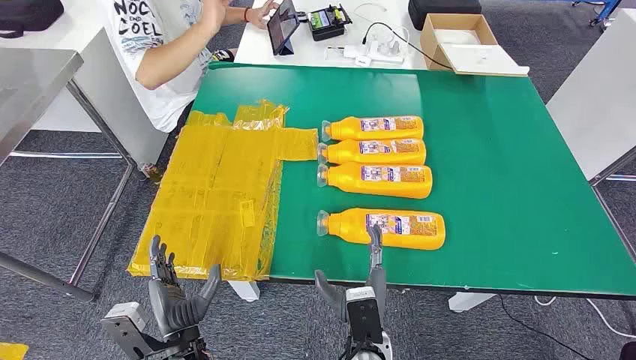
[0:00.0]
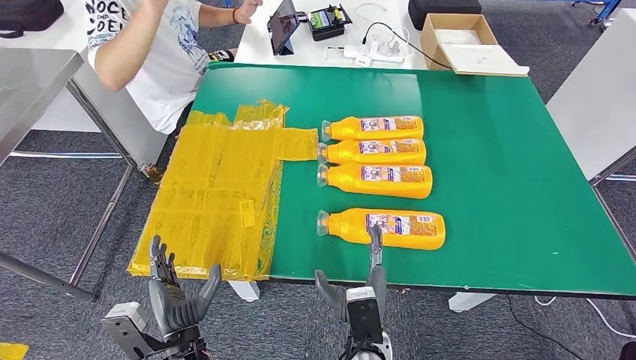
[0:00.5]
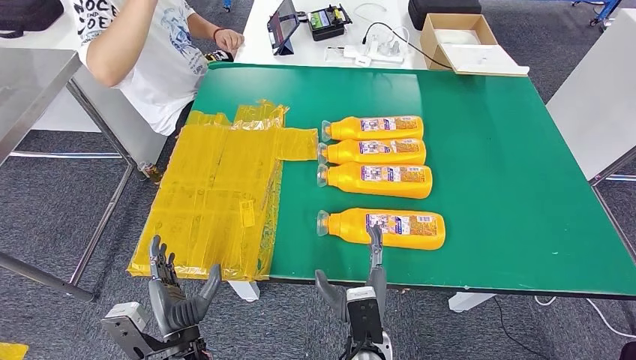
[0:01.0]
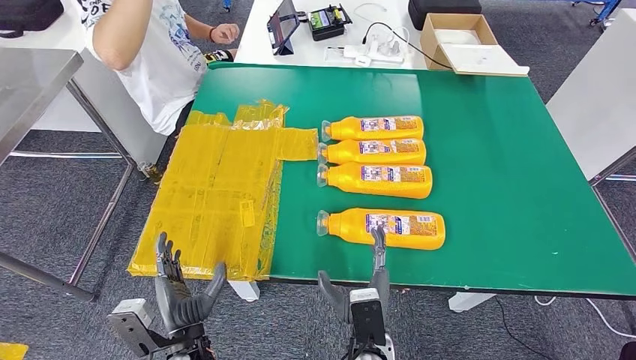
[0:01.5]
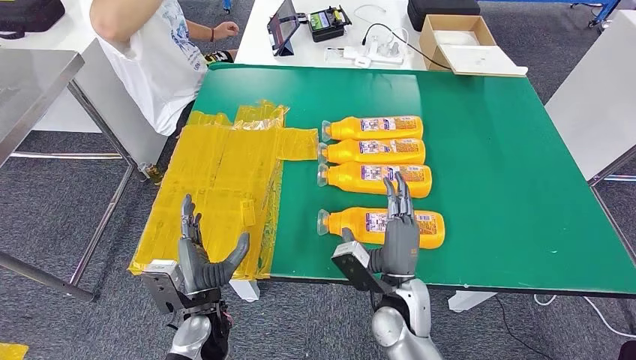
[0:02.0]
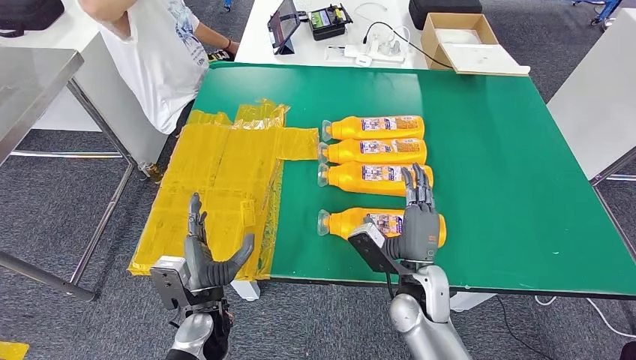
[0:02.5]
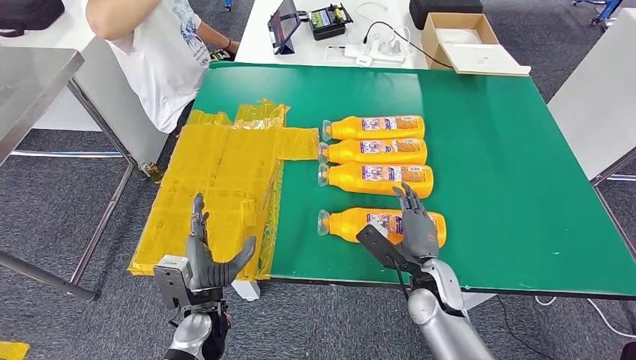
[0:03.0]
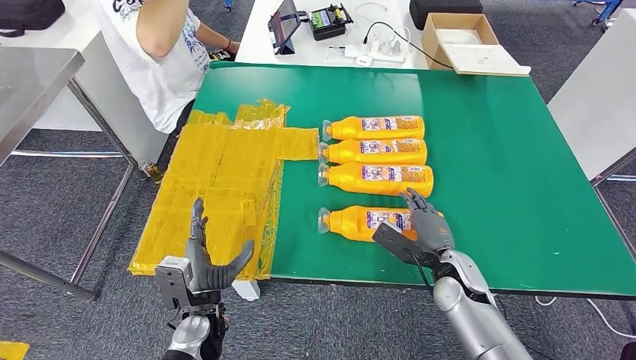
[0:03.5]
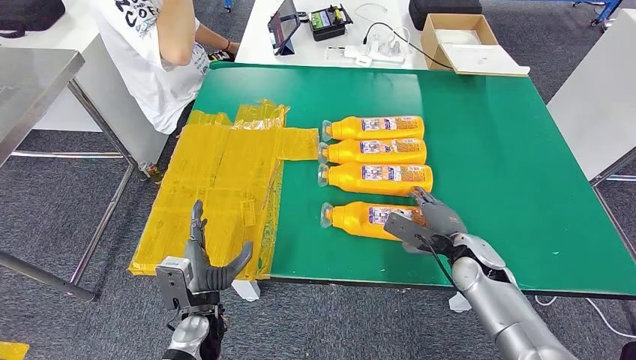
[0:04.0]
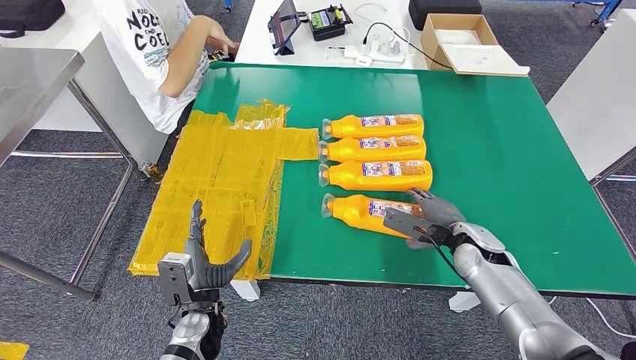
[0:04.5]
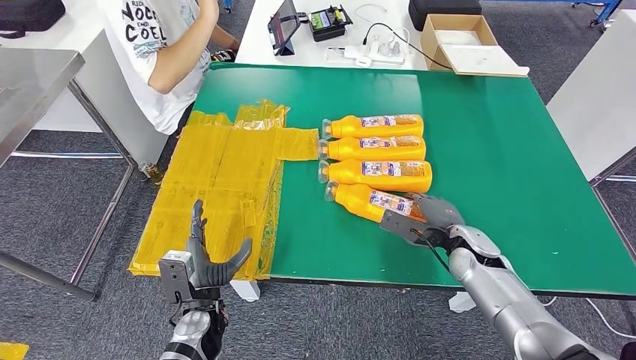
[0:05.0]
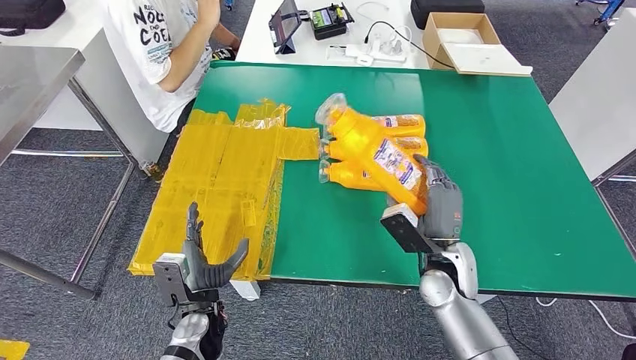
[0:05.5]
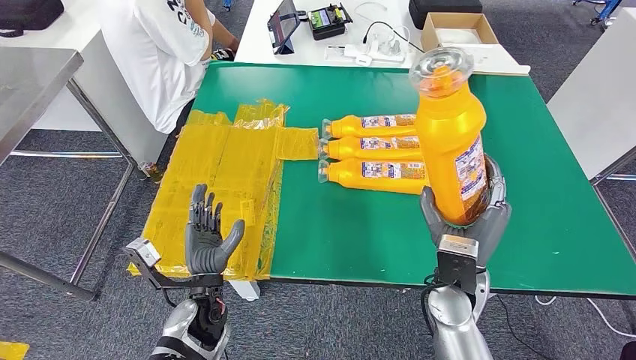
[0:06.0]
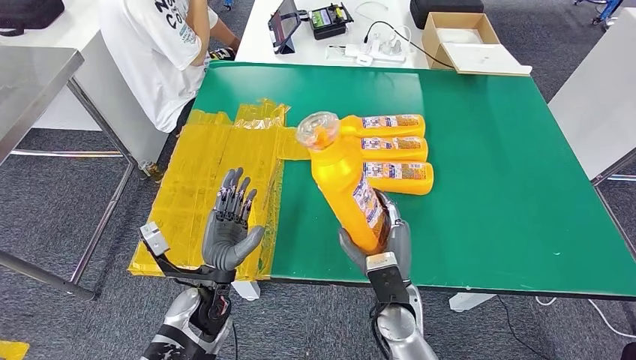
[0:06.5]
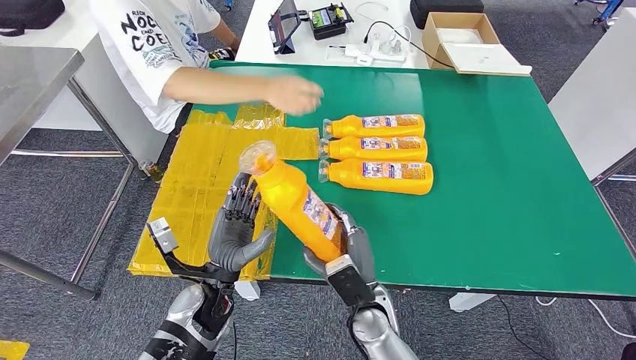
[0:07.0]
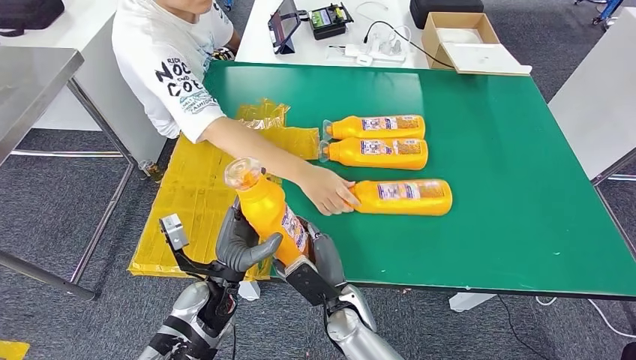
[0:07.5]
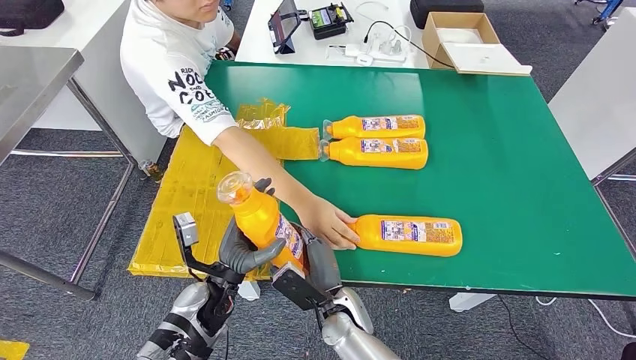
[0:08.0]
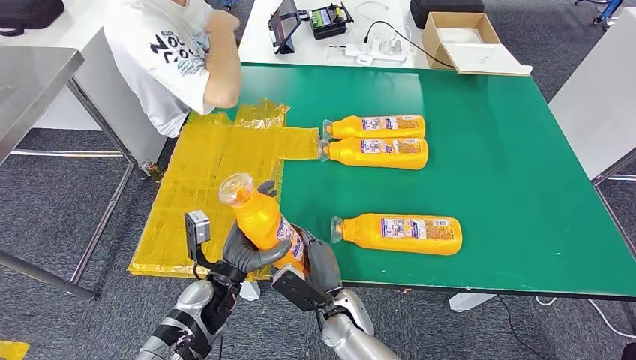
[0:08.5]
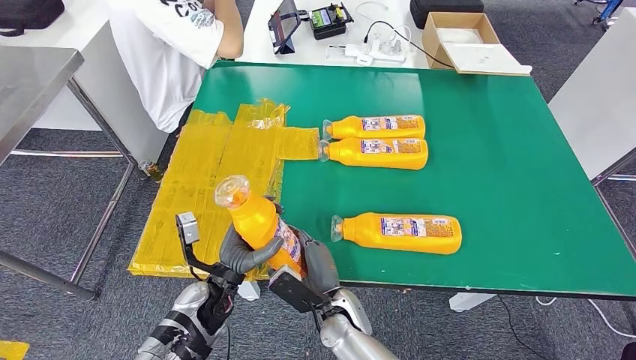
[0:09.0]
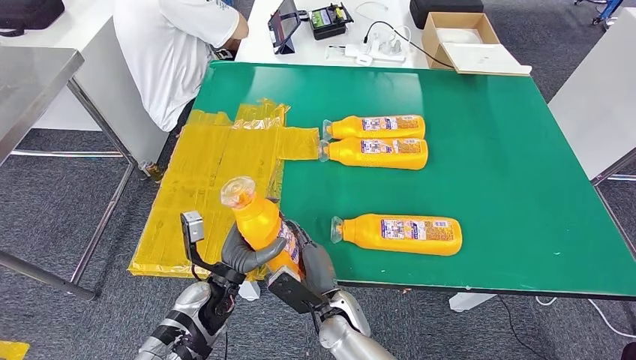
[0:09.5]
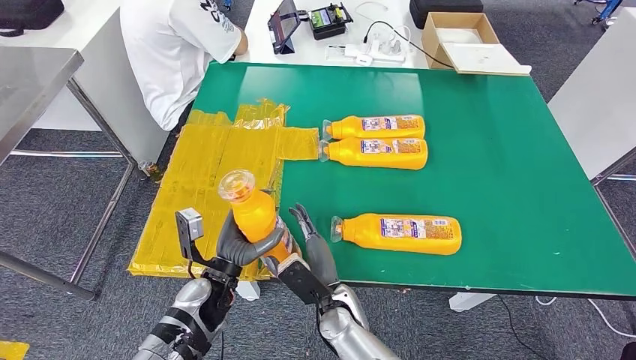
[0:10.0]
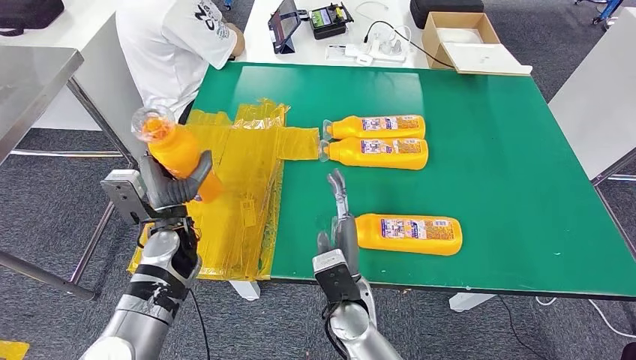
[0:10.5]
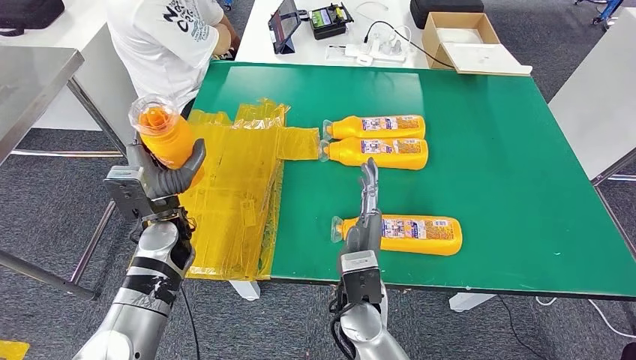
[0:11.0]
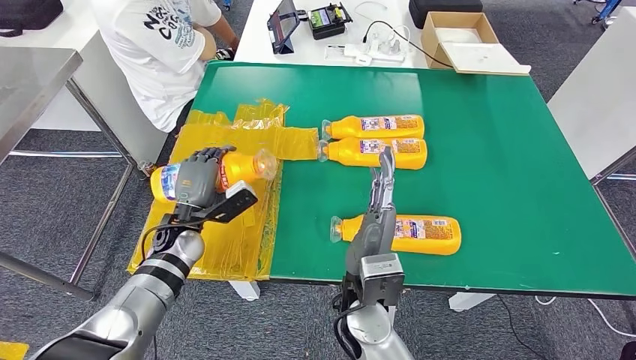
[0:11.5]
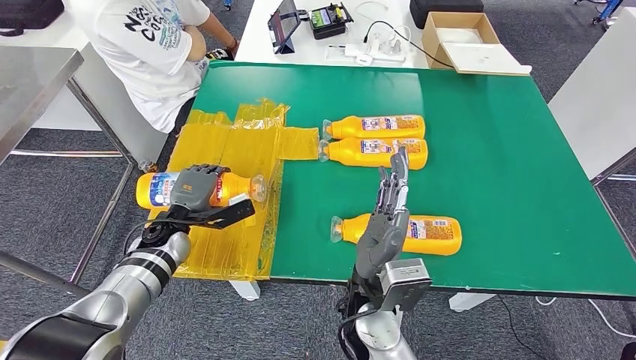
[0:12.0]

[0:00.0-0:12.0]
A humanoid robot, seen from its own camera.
Step, 0:00.0 to 0:06.5: Take the bottle from the table.
0:02.0 to 0:04.0: The right hand travels to the right and forward by about 20 cm.
0:08.0 to 0:10.0: The hands make only small movements.

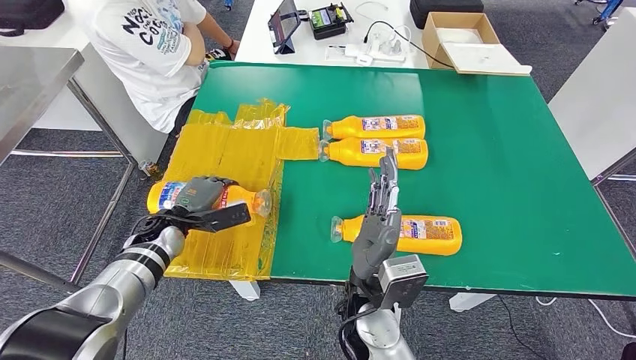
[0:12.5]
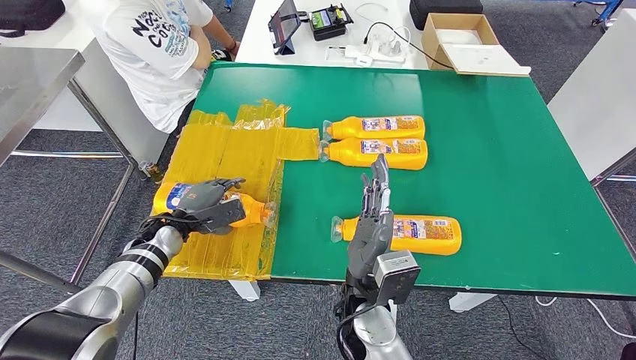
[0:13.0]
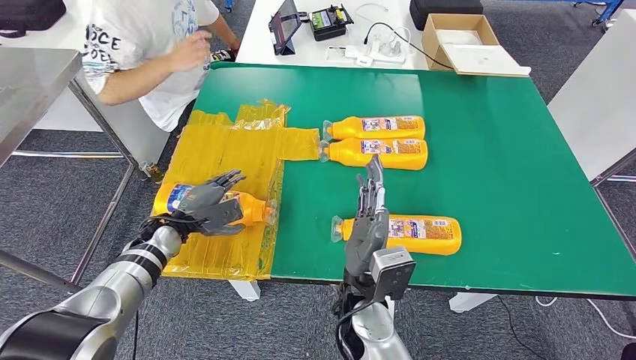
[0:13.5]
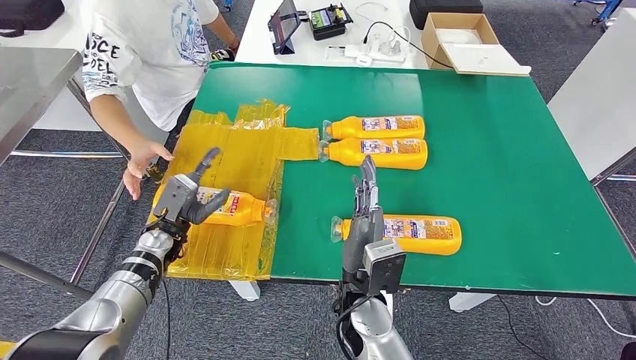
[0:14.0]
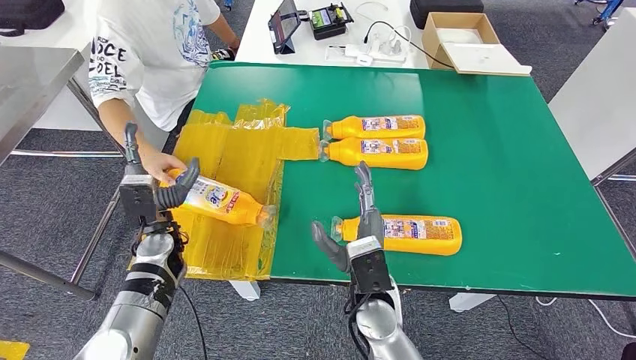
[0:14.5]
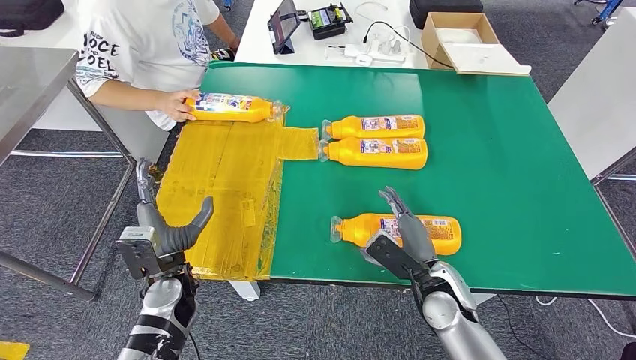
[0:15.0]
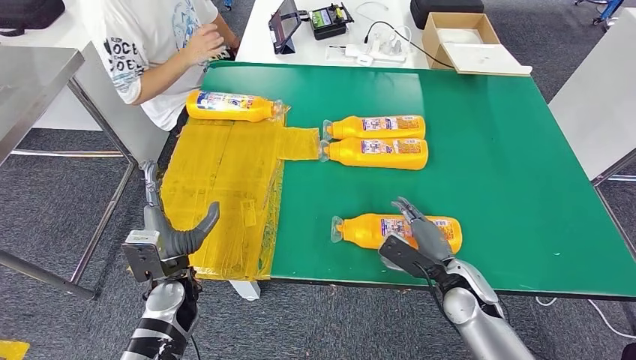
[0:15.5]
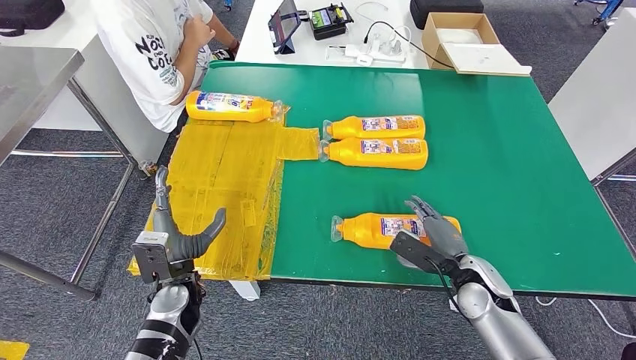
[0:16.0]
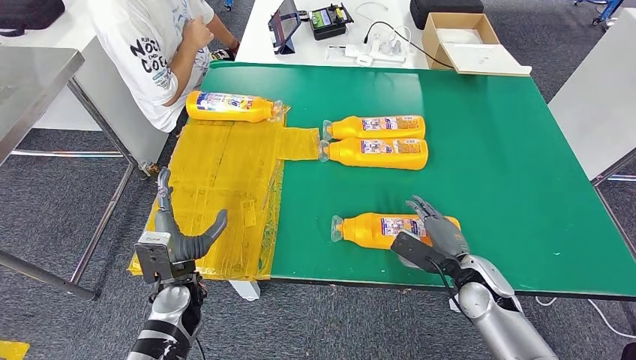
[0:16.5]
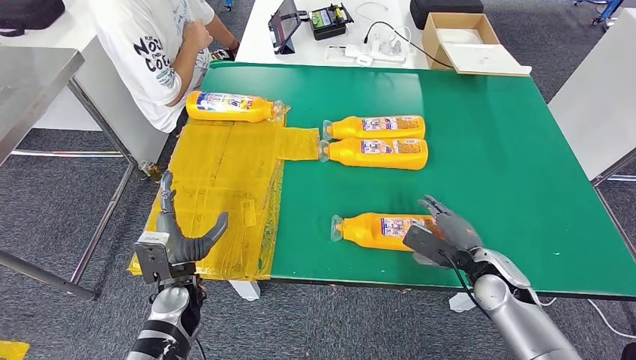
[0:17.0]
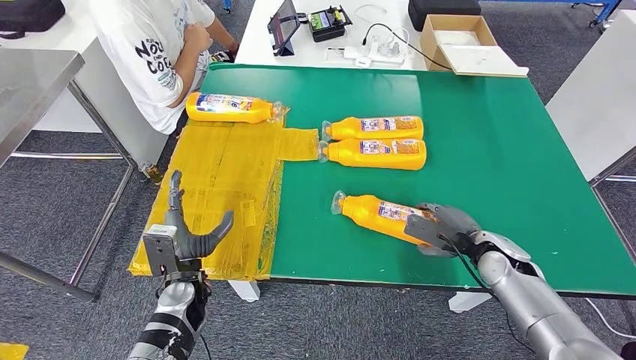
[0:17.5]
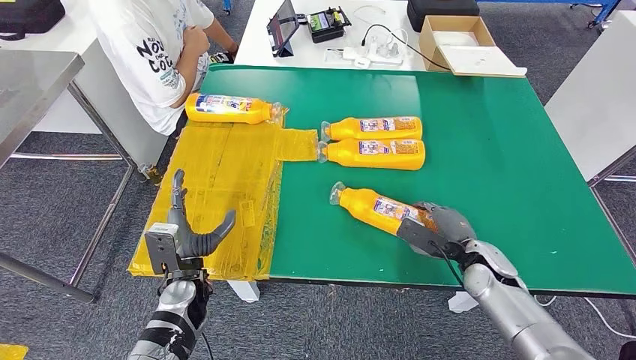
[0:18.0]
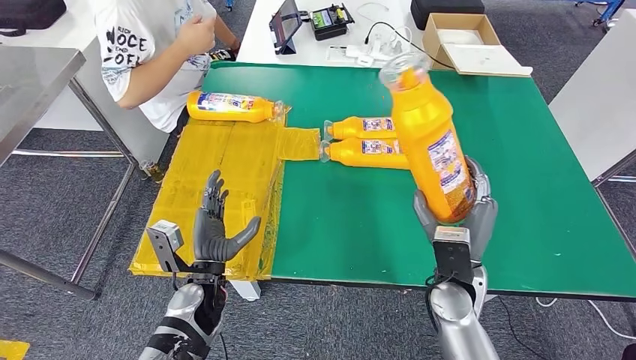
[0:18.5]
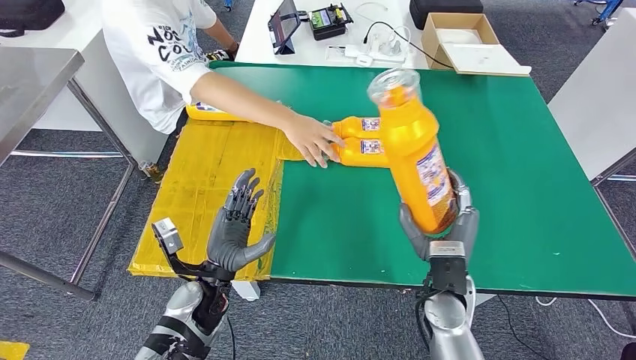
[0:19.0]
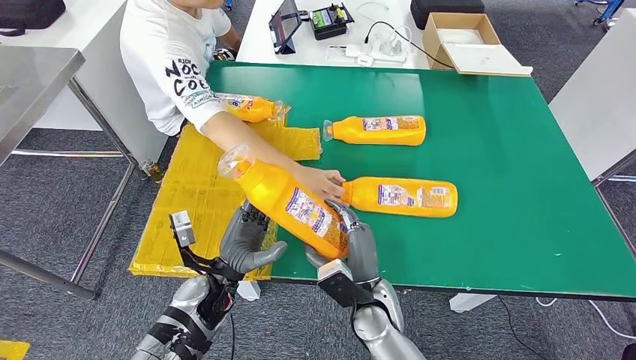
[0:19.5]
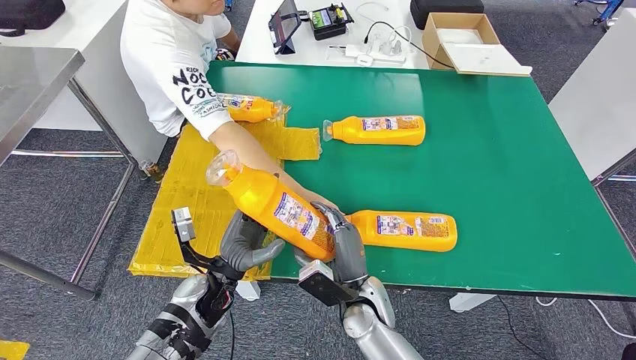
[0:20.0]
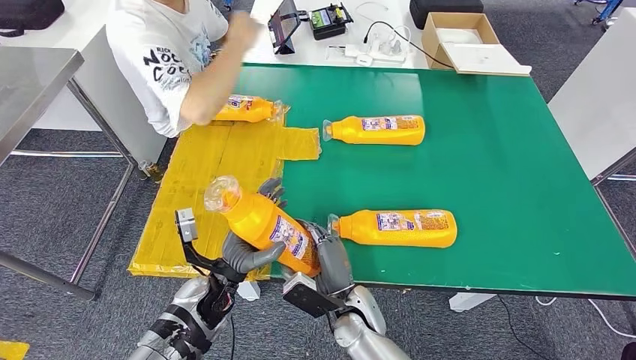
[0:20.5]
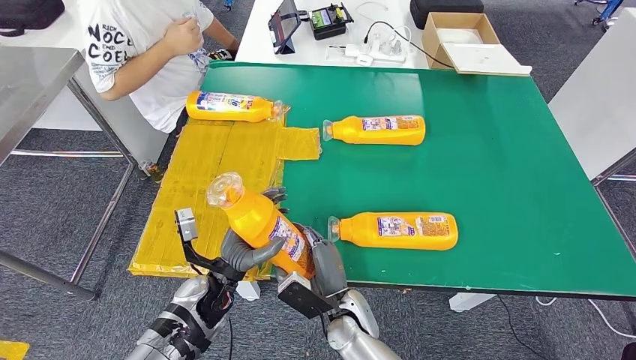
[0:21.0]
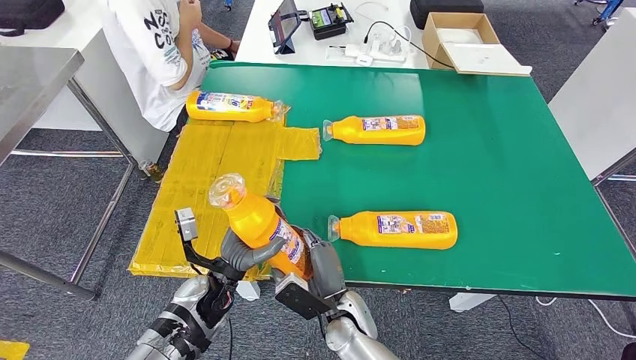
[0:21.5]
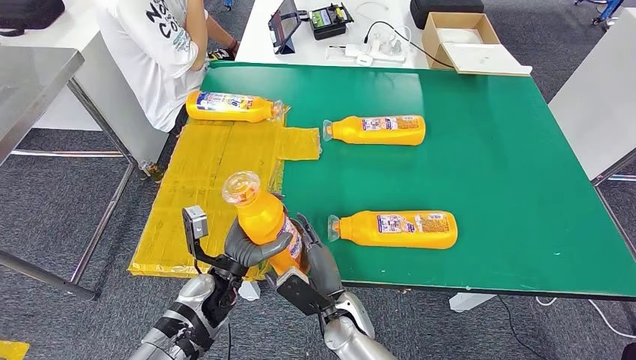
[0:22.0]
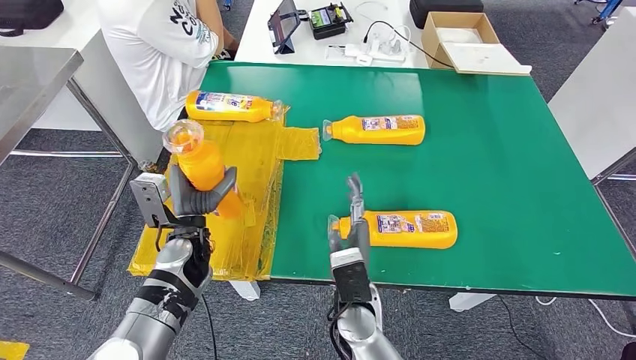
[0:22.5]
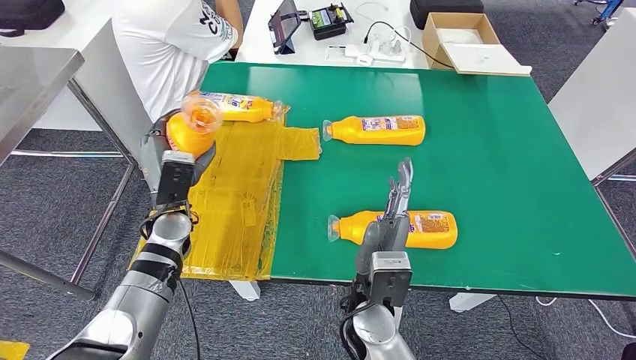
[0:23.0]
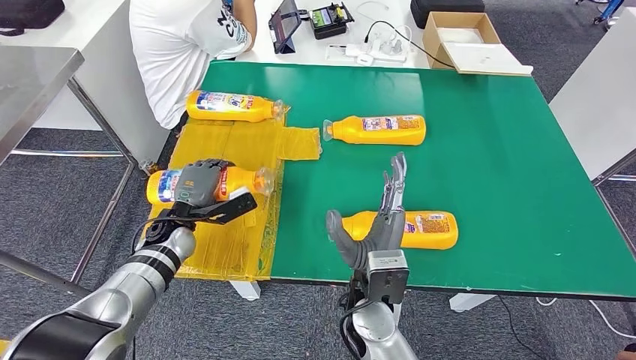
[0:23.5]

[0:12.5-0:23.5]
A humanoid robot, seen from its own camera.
Step, 0:13.0 to 0:19.0: Pick up the bottle from the table.
0:14.5 to 0:16.0: The right hand shifts about 20 cm to the right; the left hand goes about 10 cm backward.
0:20.0 to 0:21.5: The hands move only a little.
